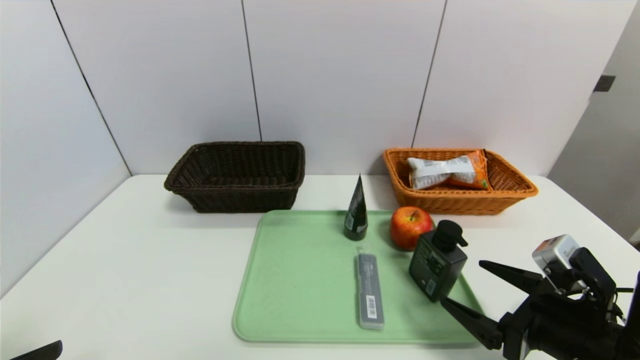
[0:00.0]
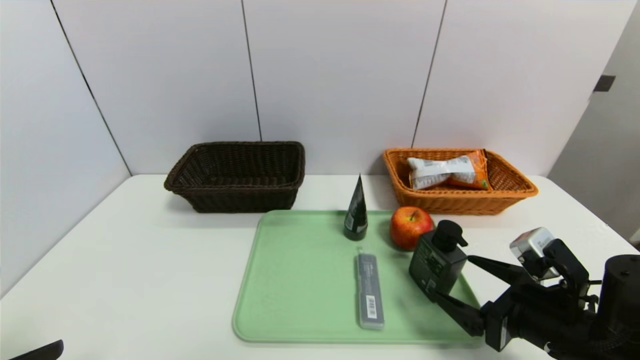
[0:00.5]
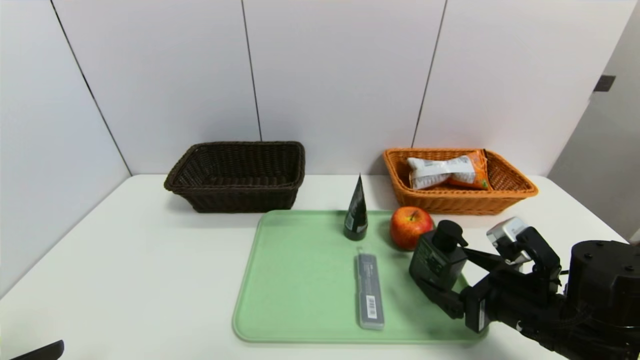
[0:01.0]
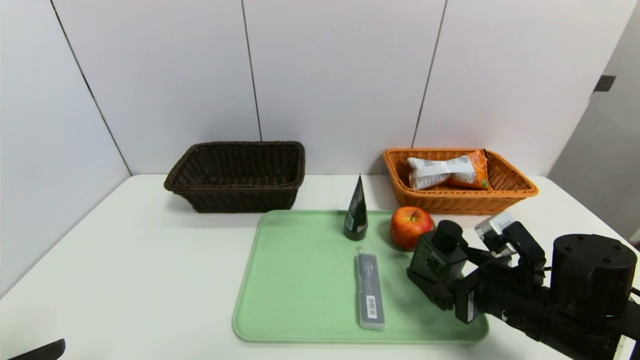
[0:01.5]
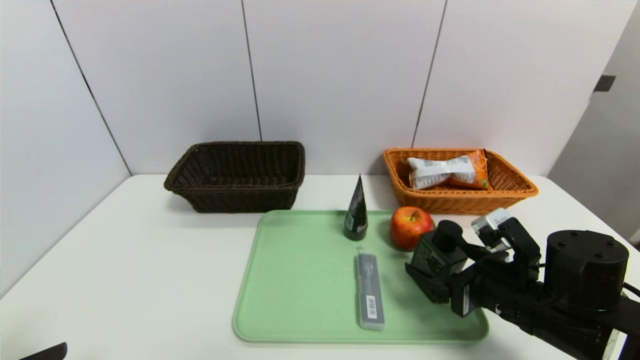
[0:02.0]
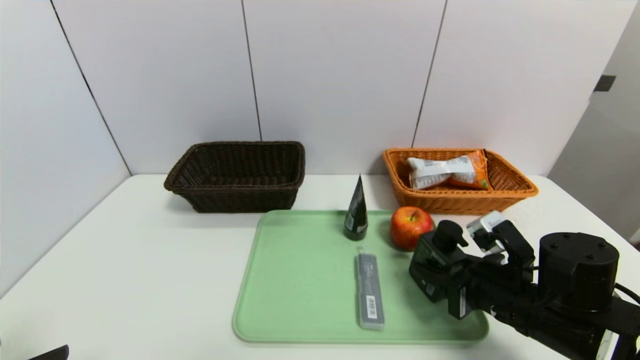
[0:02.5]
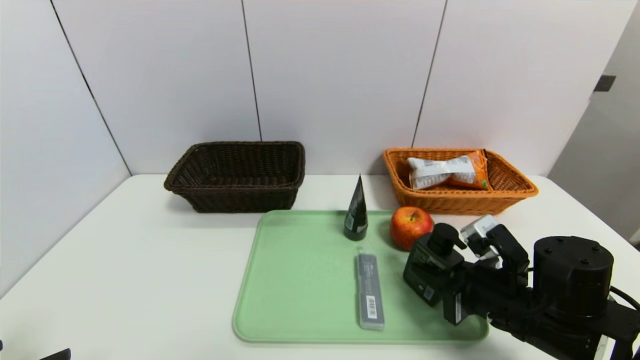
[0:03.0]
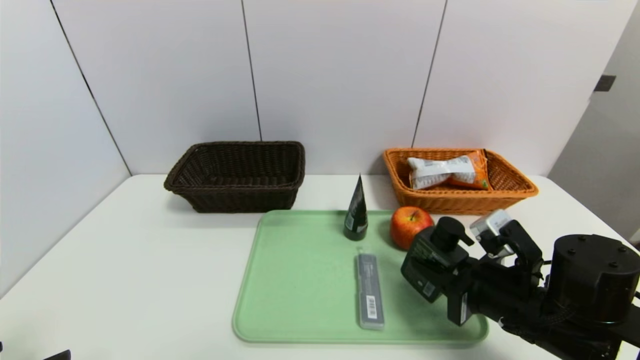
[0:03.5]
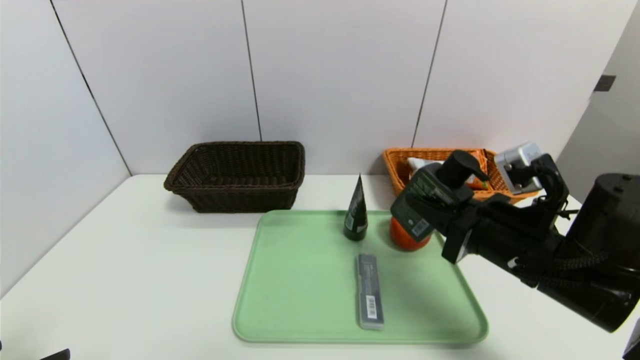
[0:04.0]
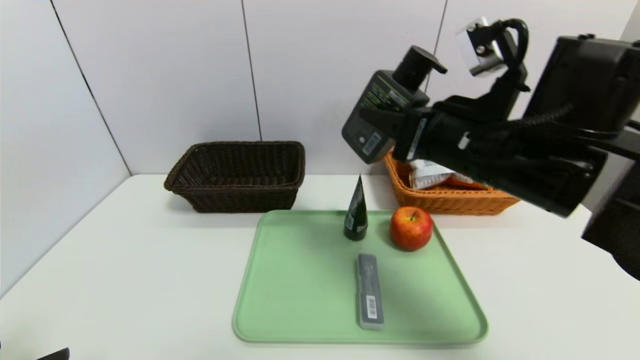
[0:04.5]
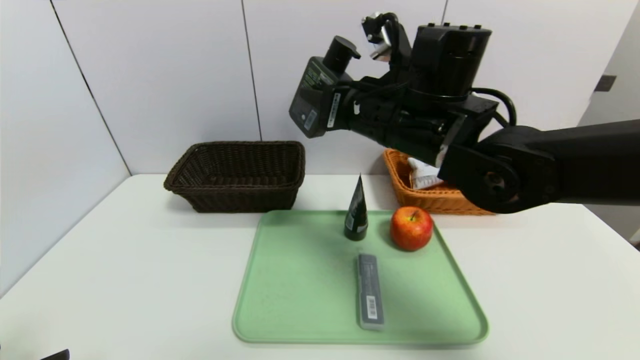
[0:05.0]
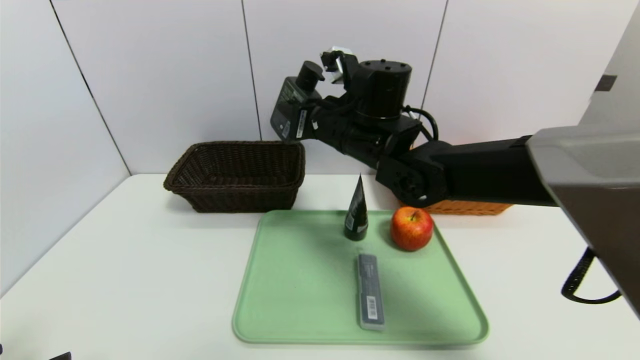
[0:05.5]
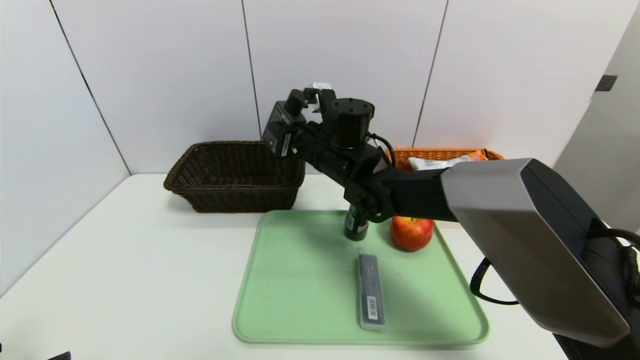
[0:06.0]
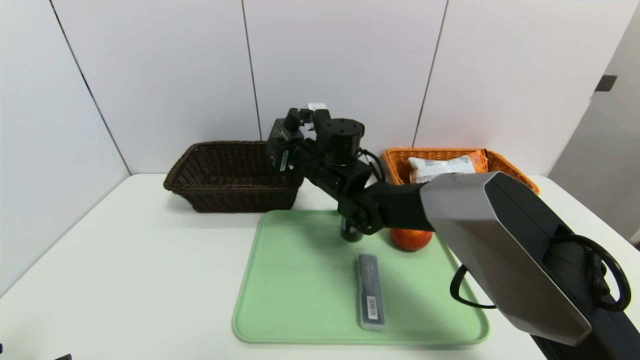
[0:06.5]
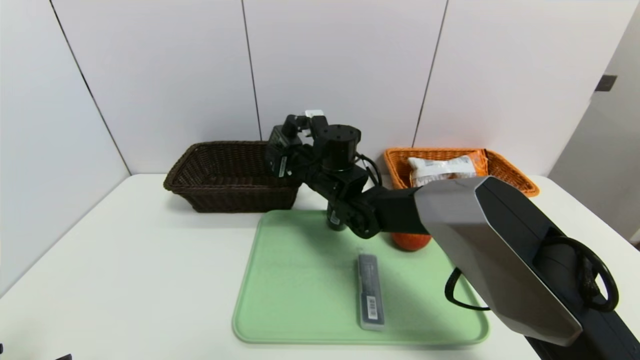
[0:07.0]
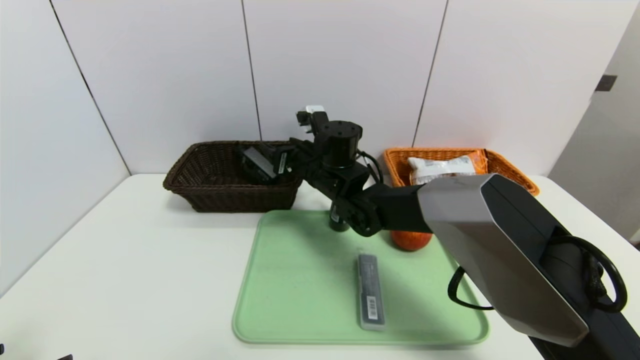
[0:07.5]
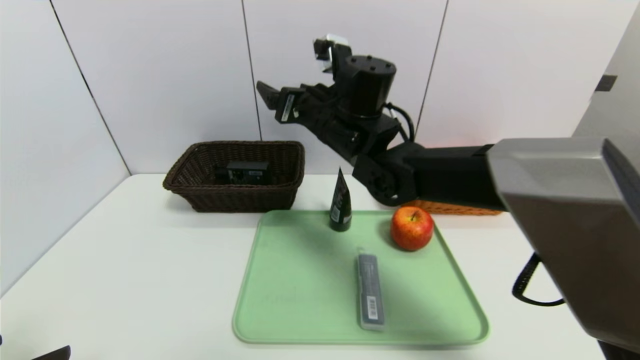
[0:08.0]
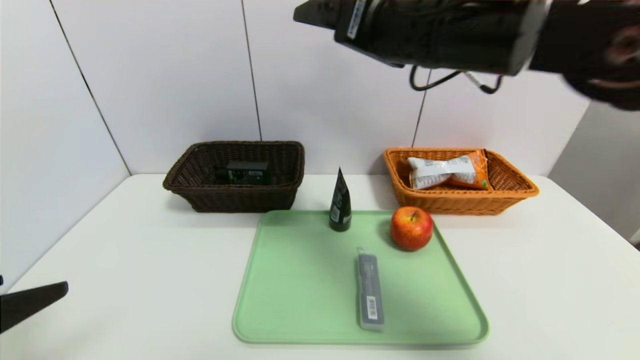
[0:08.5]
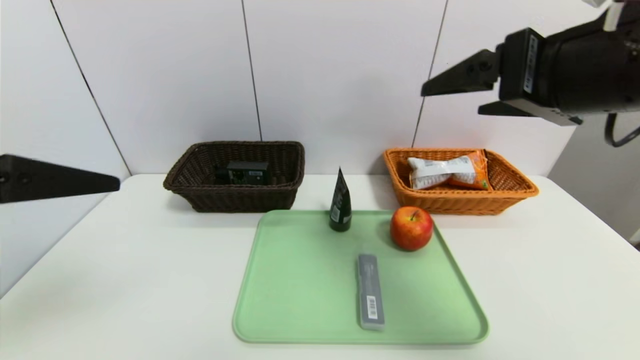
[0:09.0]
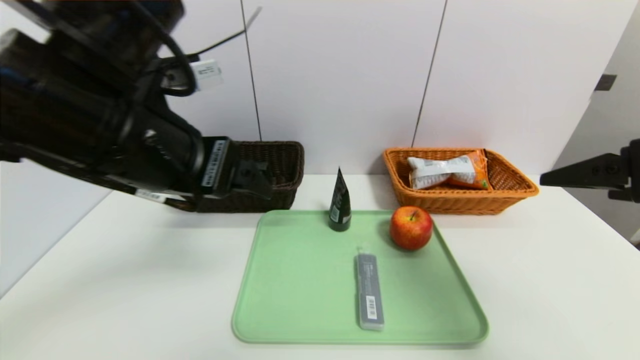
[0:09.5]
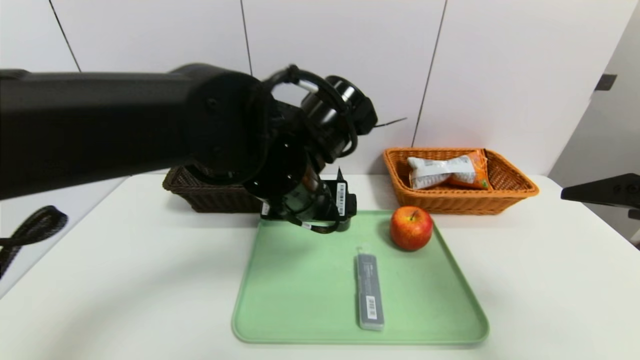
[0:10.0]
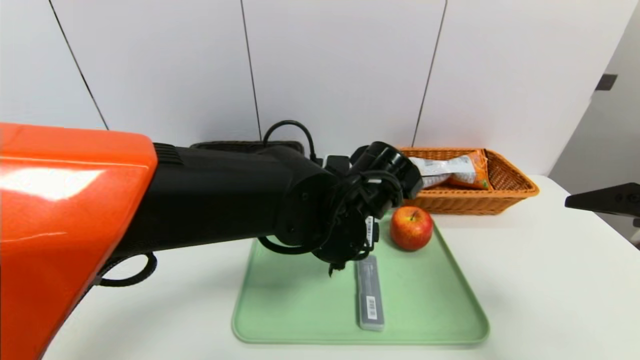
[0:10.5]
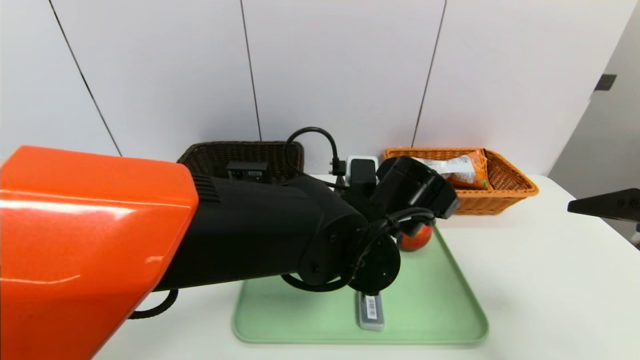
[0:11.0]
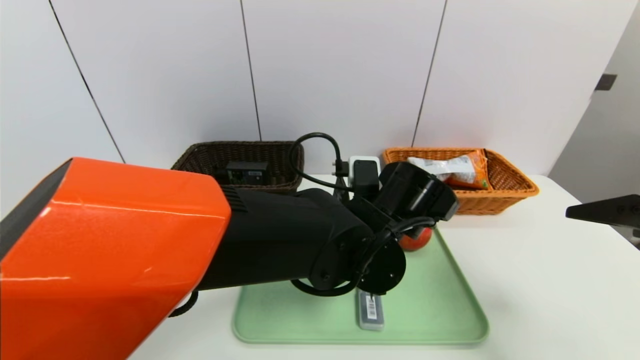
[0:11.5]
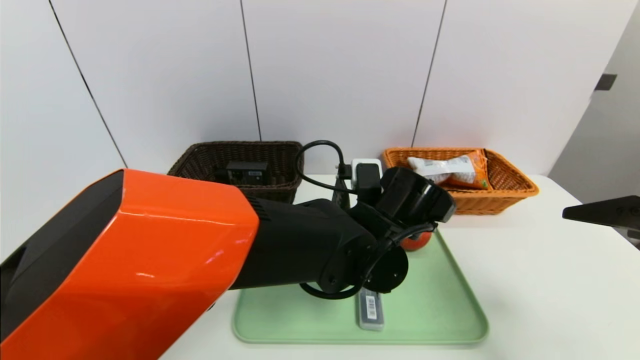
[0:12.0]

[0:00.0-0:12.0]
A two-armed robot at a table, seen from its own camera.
Task of the whole recording: place the food in the right basket with the right gripper, and place the non food items in the left basket with the left gripper.
0:00.0 to 0:02.0: The right gripper heads forward, covering some 5 cm.
0:02.0 to 0:04.0: The right gripper travels upward by about 10 cm, and closes.
0:04.0 to 0:06.0: The right gripper heads to the left and forward, covering approximately 30 cm.
0:06.0 to 0:08.0: The right gripper heads upward, covering about 5 cm, and opens.
0:08.0 to 0:10.0: The right gripper shifts roughly 35 cm to the right and backward, while the left gripper moves to the right and forward, about 35 cm.
0:10.0 to 0:12.0: The left gripper is displaced to the right and downward by roughly 10 cm.

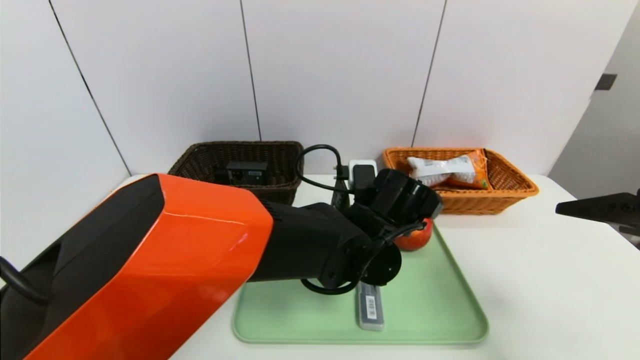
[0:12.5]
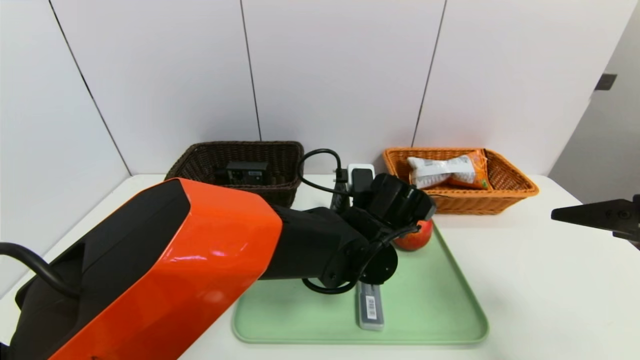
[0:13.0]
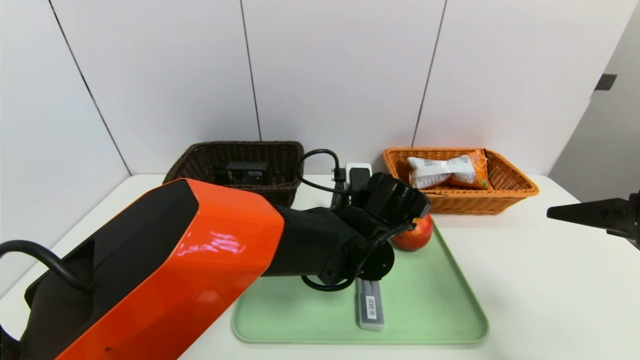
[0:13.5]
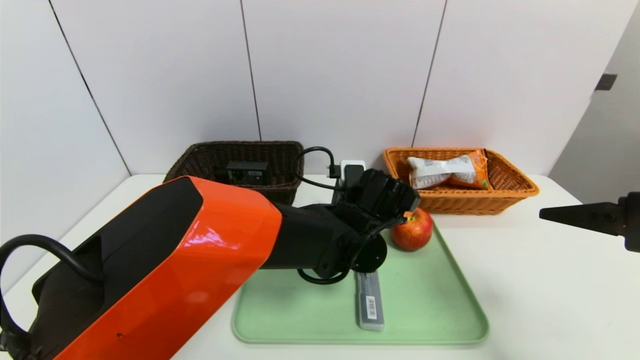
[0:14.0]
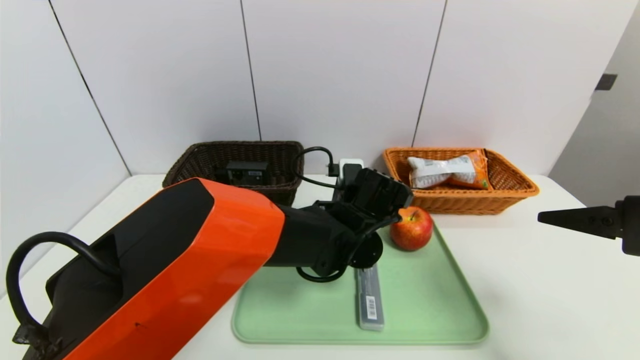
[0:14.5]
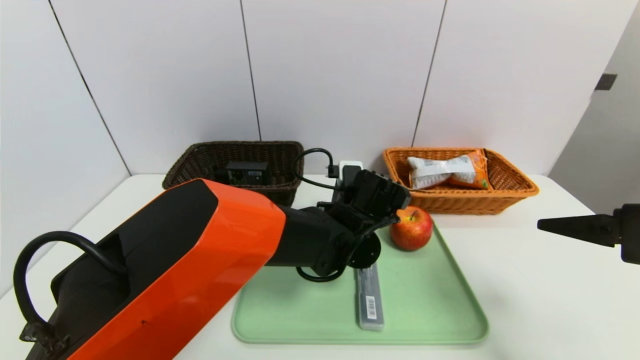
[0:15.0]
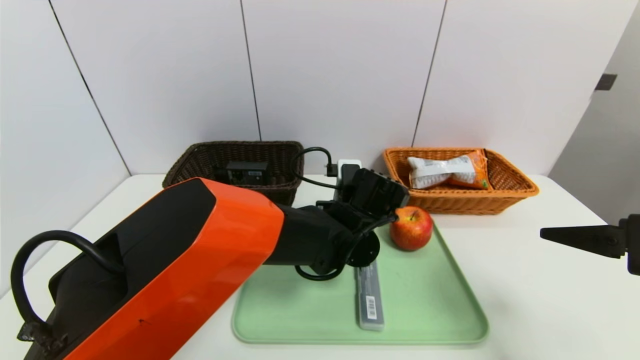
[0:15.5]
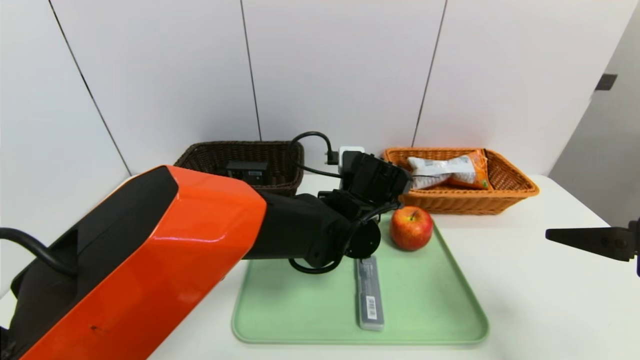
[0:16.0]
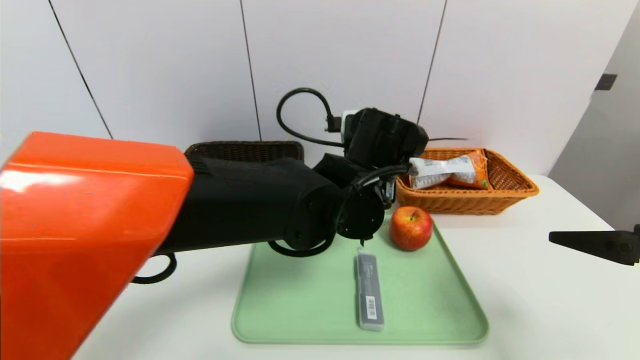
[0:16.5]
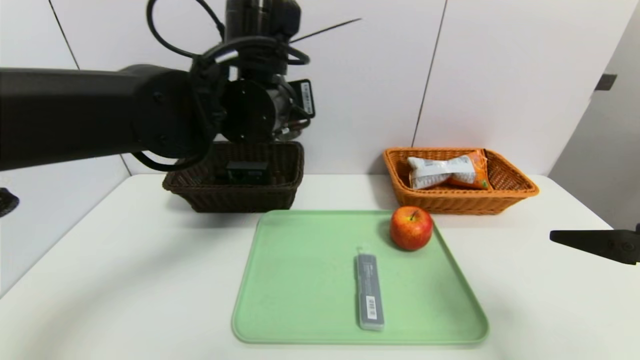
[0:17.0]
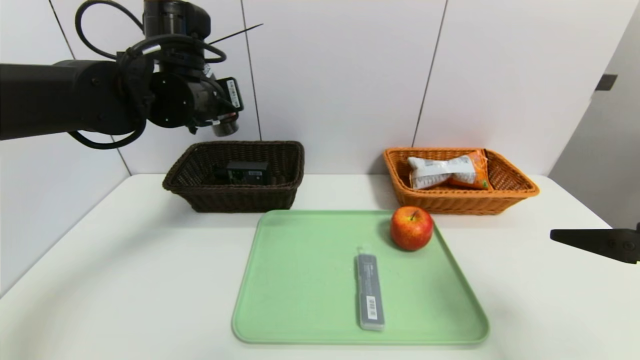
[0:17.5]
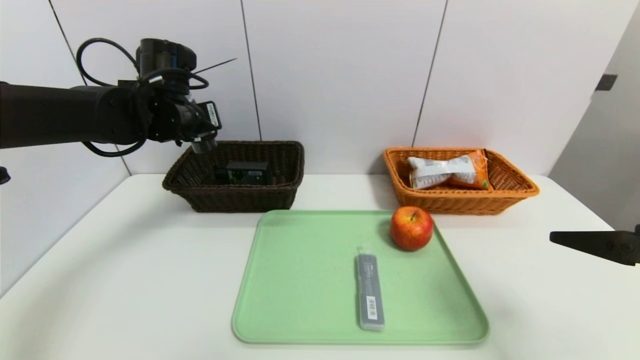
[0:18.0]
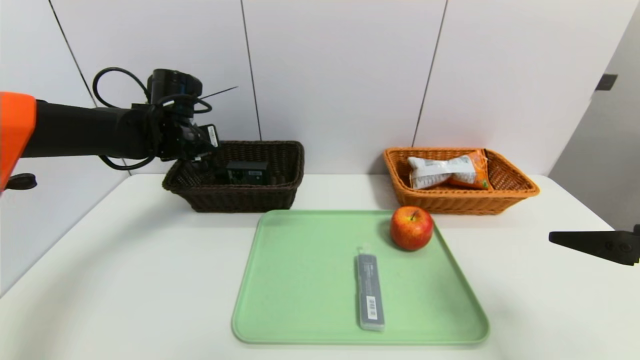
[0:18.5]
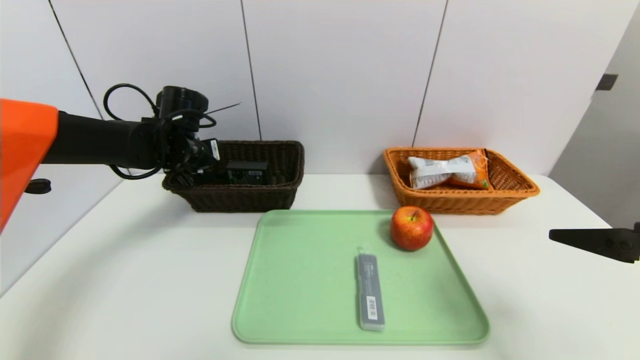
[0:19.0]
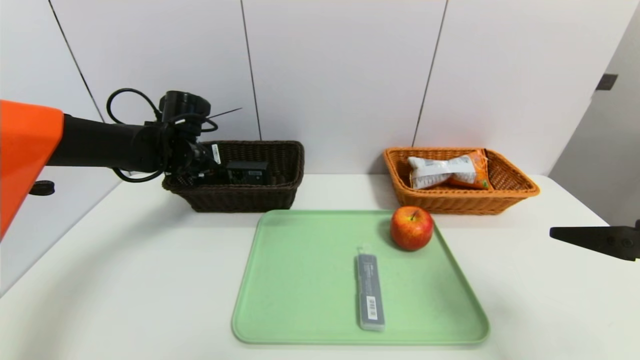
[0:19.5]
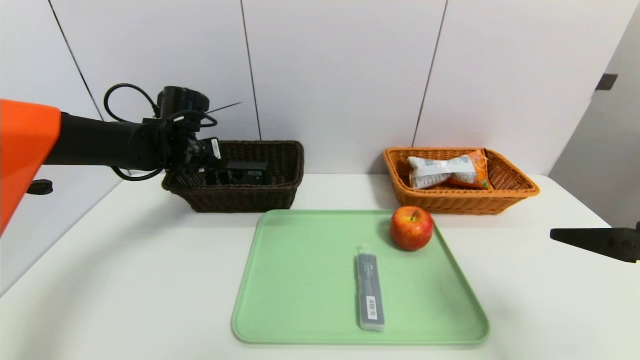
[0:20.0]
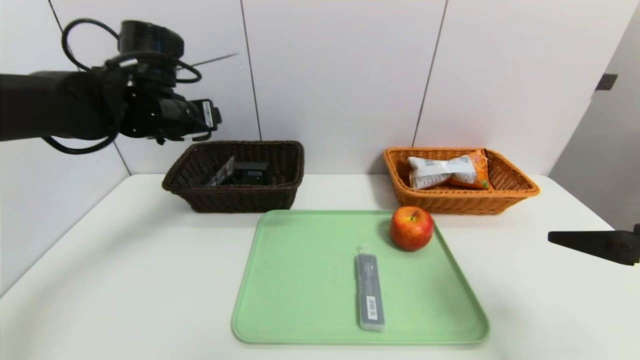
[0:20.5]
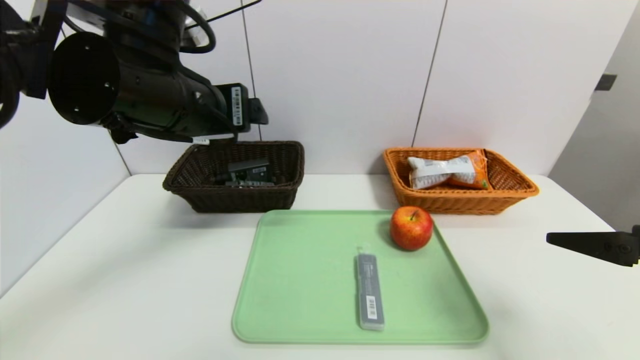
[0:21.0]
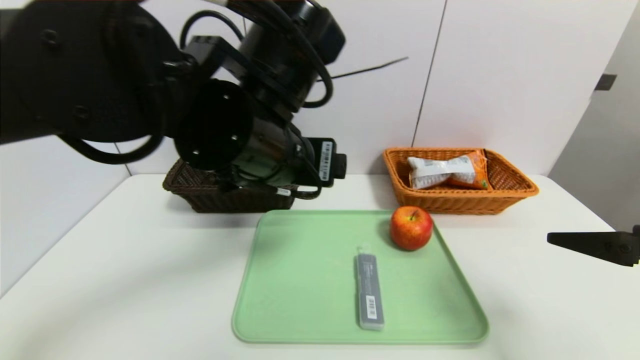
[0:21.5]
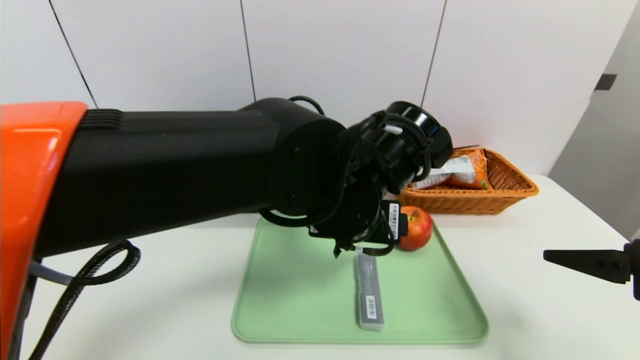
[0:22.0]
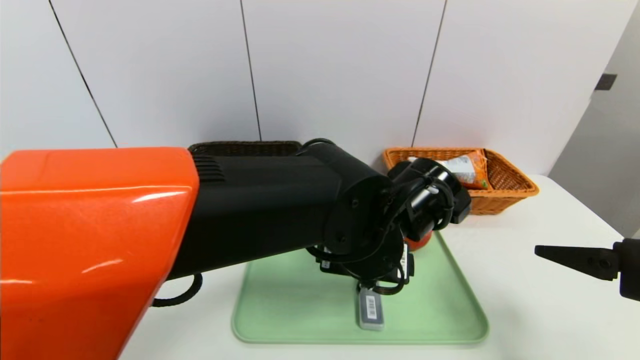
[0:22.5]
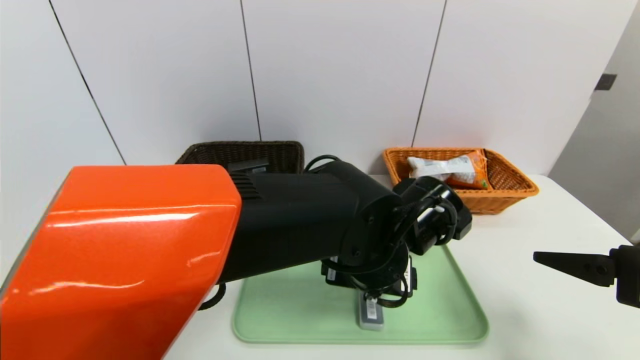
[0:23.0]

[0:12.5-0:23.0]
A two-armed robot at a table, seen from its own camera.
Task of the whole recording: place the food in the right basket with the right gripper, and place the non food items in the left basket with the left gripper.
Step, 0:12.5 to 0:20.5: Grasp the soft cleanser and put it in the left basket.
0:12.5 to 0:14.5: There are only small adjustments of the grippers.
0:14.5 to 0:16.5: The left gripper goes some 10 cm upward, and closes its fingers.
0:16.5 to 0:19.0: The left gripper travels to the left and forward by some 30 cm.
0:19.0 to 0:21.0: The left gripper moves backward, upward and to the right, roughly 25 cm, and opens its fingers.
0:21.0 to 0:23.0: The left gripper heads to the right and downward, covering roughly 25 cm.
